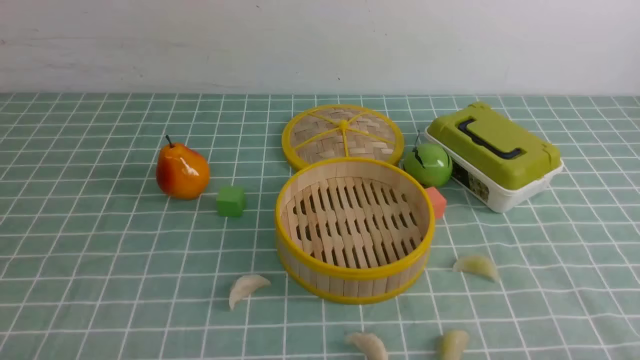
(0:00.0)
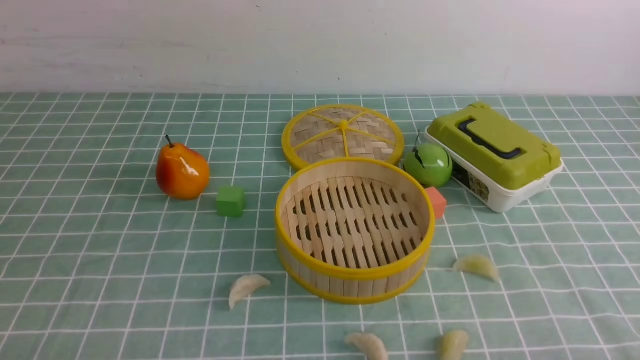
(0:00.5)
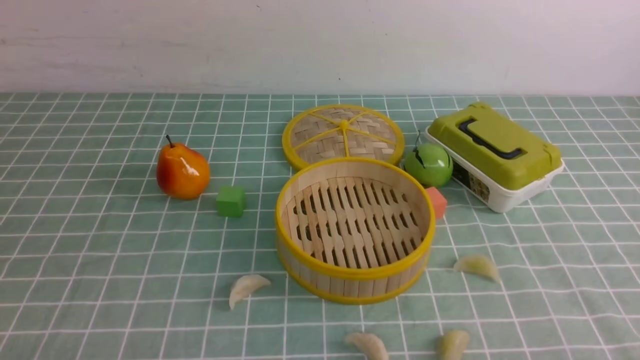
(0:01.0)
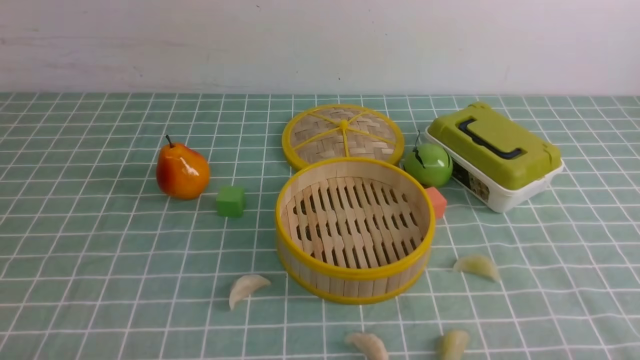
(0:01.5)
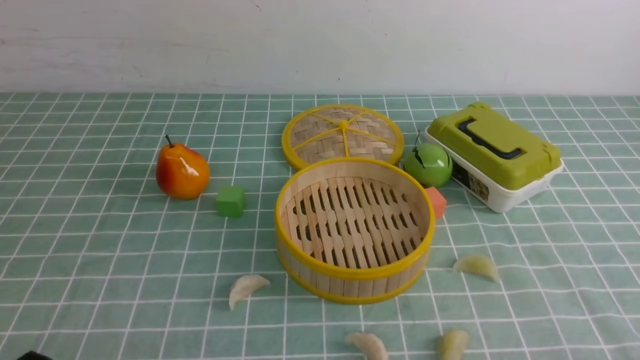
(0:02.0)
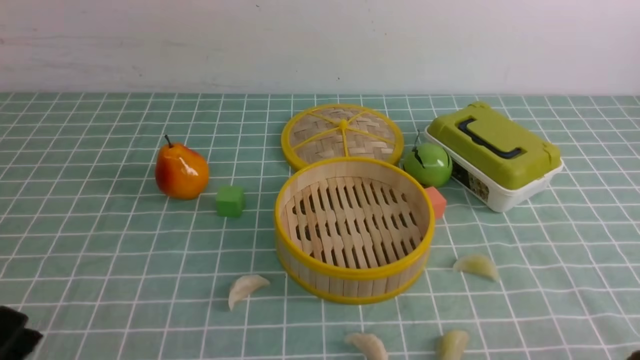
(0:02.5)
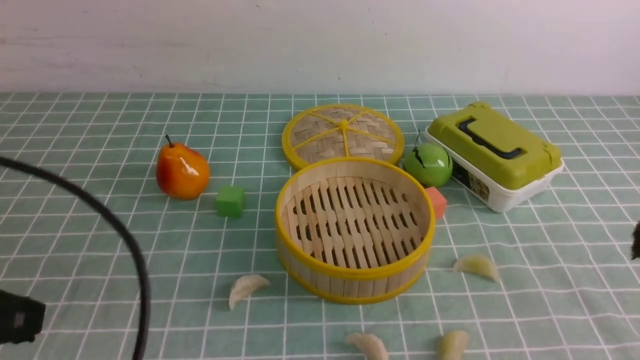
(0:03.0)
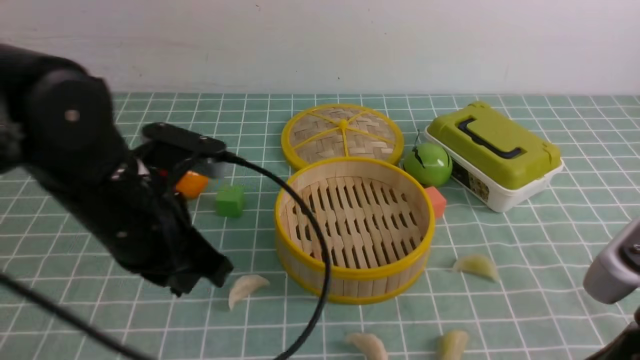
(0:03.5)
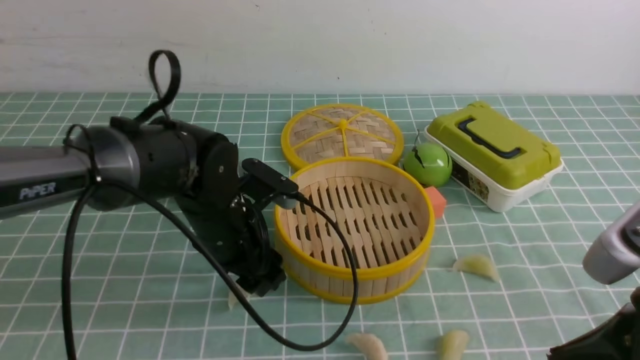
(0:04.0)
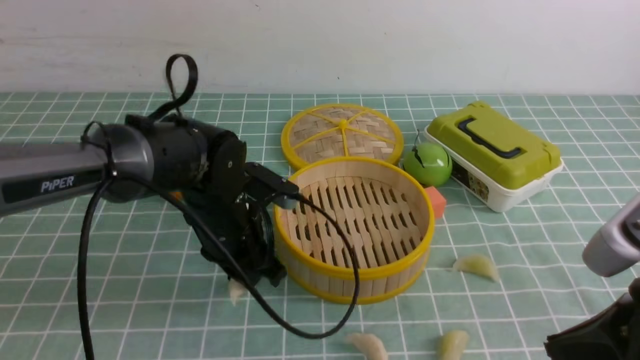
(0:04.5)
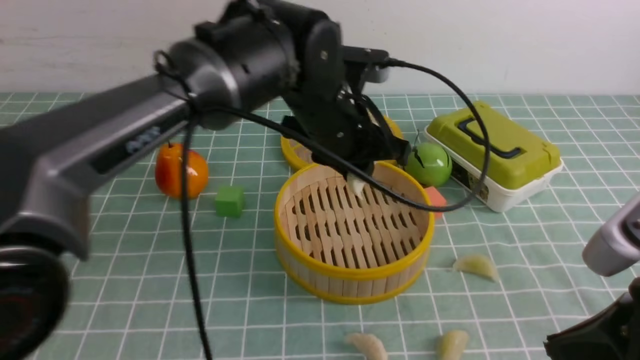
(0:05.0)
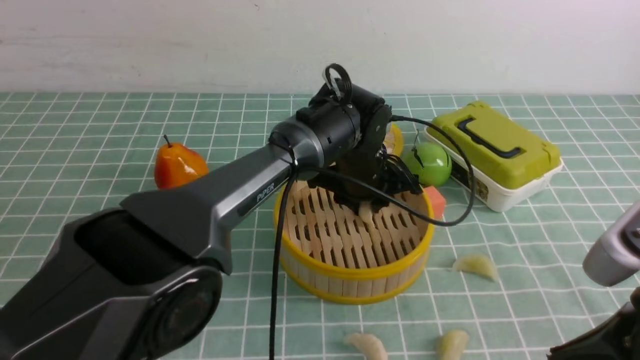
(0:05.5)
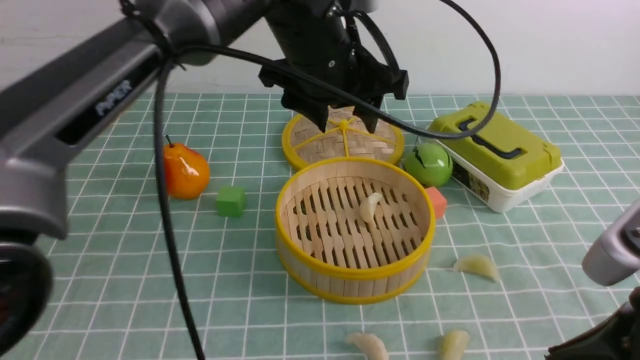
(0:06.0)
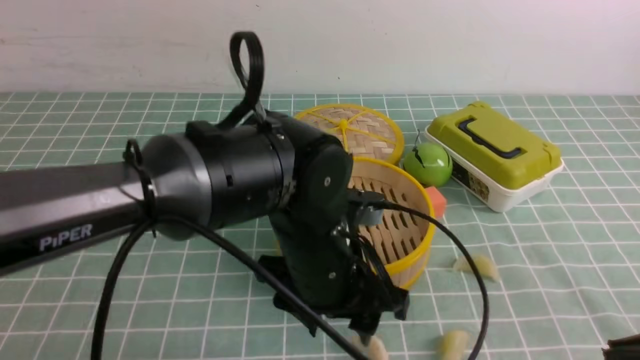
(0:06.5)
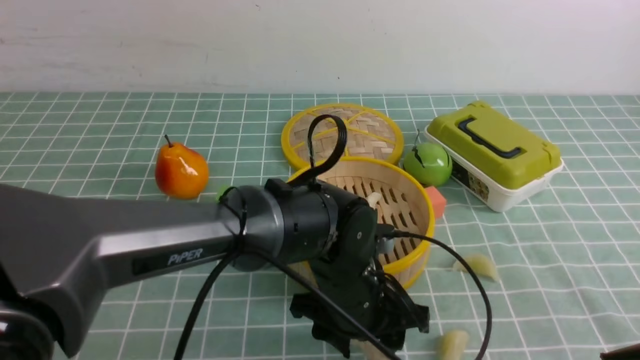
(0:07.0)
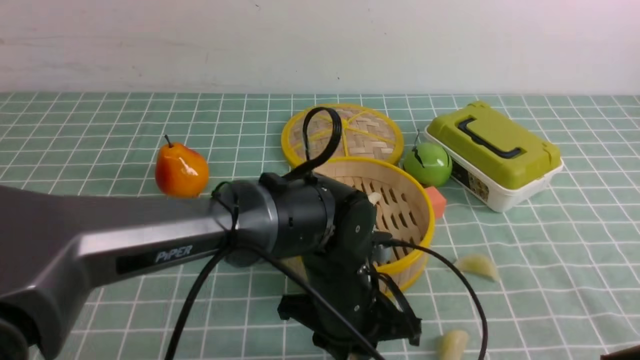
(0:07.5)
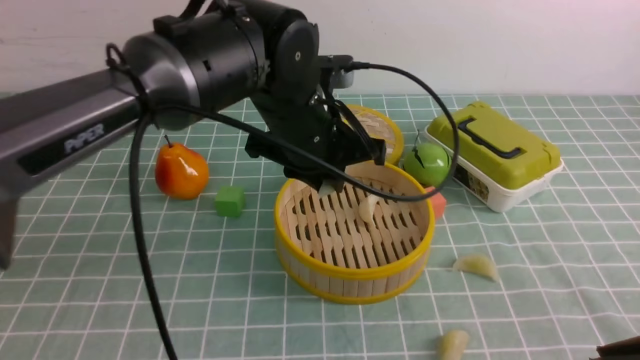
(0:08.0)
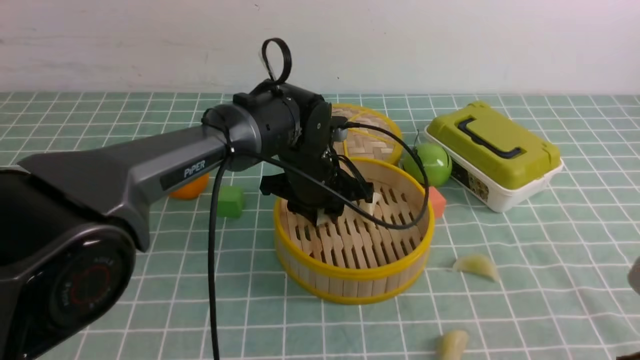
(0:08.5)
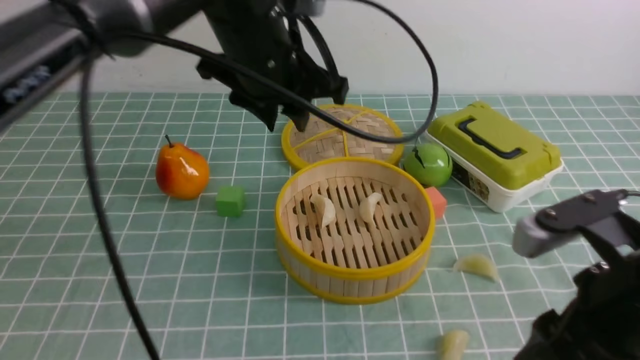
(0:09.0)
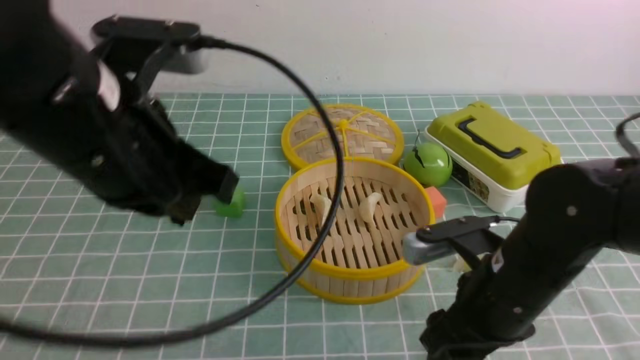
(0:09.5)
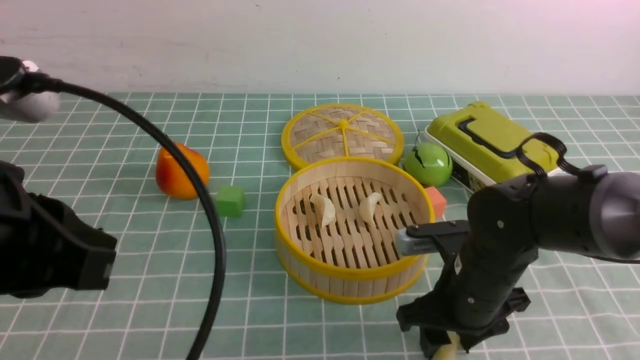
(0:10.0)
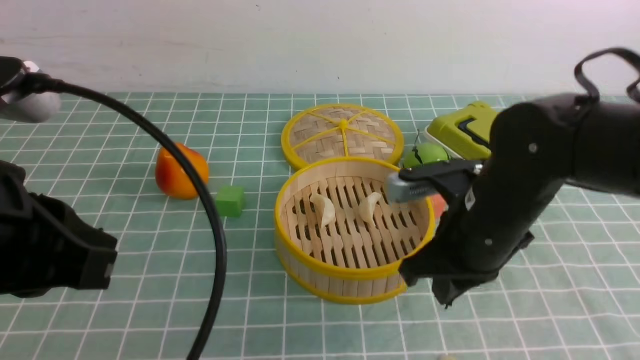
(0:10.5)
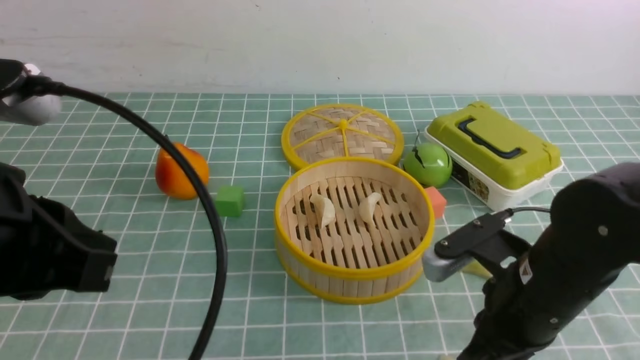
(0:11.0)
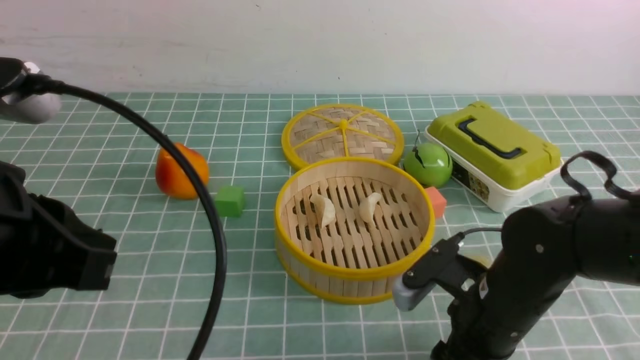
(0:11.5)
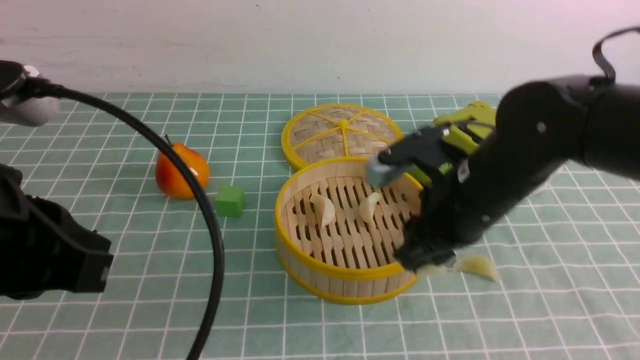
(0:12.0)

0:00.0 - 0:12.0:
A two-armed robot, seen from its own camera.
Task of the whole recording: put the dumplings into the steamer on the table with the blue tablecloth.
Step, 0:00.0 - 0:04.0: use the left arm to grab a dumpling.
Step, 0:04.5 - 0:05.5: use the left arm to put the dumpling into the steamer.
Step, 0:06.0 - 0:07.0: use the left arm to grab a dumpling.
Step, 0:07.5 - 0:08.5: use the left arm to put the dumpling into the steamer.
Step, 0:09.0 - 0:11.5: use the right arm to grab a dumpling.
0:02.0 - 0:04.0: The right gripper shifts roughly 15 cm upward, forward and to the left, and closes up; the left gripper travels forward and to the right by roughly 30 cm, and opens its fingers.
0:04.0 - 0:06.0: The left gripper swings up and down, some 15 cm each way, with 2 reversals, and closes, then opens again.
0:06.0 - 0:08.0: The left gripper goes downward and returns, approximately 15 cm each way, and closes its fingers.
0:08.0 - 0:10.0: The left gripper goes approximately 30 cm backward, to the left and upward, while the right gripper goes approximately 25 cm forward, downward and to the left, and opens.
0:10.0 - 0:12.0: The right gripper goes up and down, about 10 cm each way, reversing 2 times, and closes, then reopens.

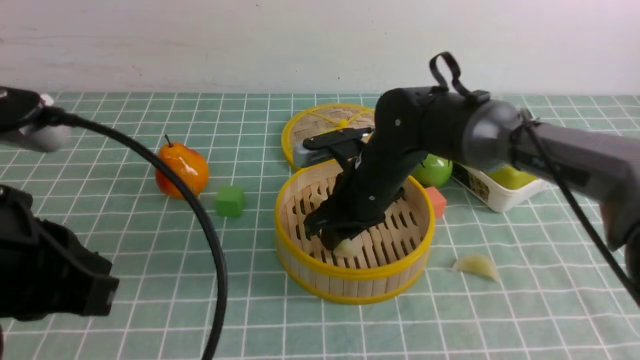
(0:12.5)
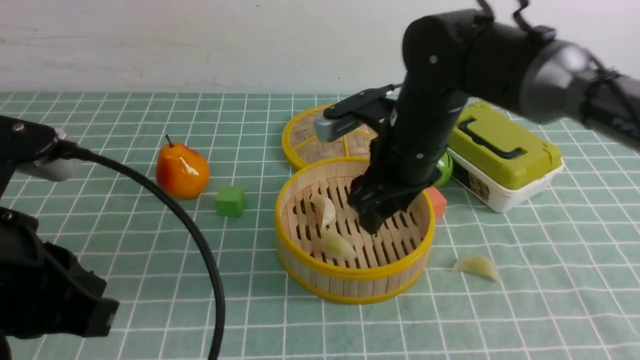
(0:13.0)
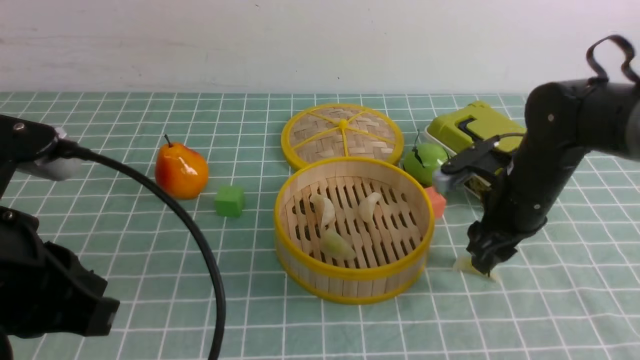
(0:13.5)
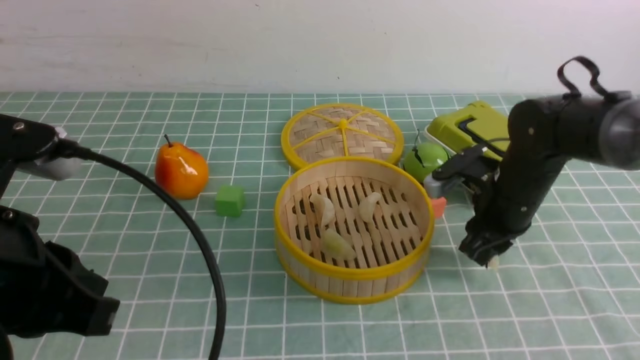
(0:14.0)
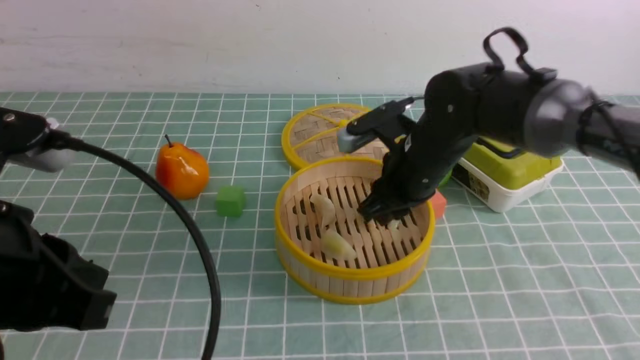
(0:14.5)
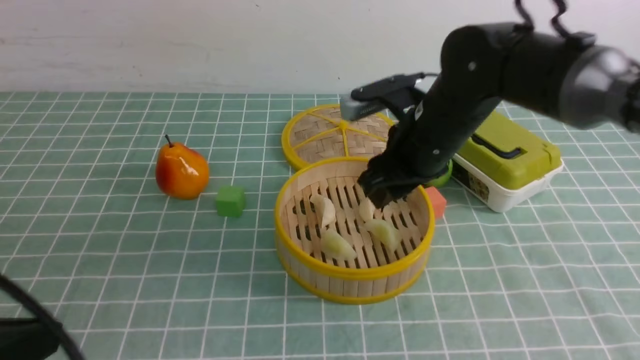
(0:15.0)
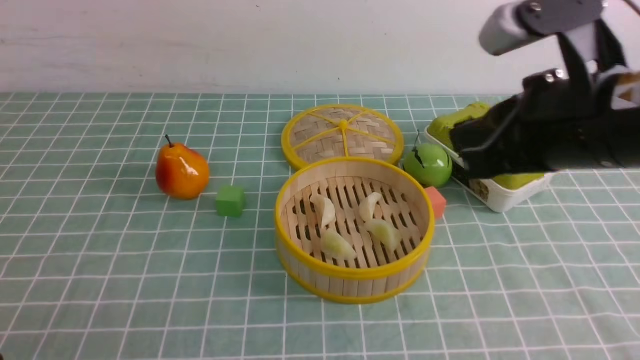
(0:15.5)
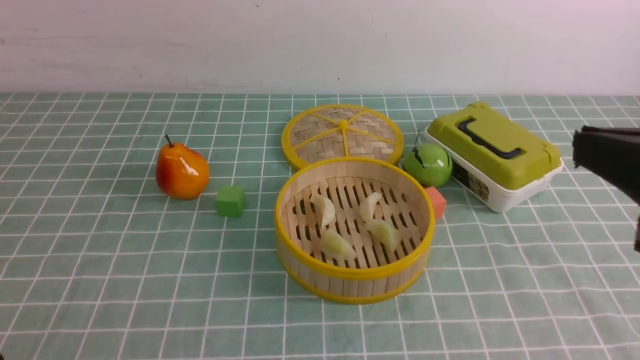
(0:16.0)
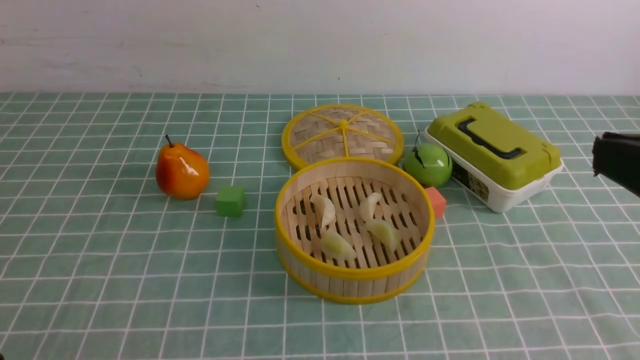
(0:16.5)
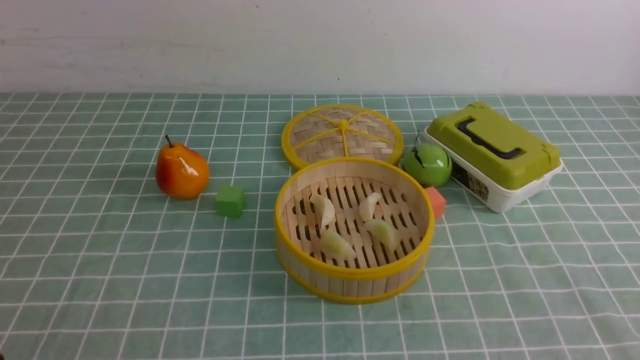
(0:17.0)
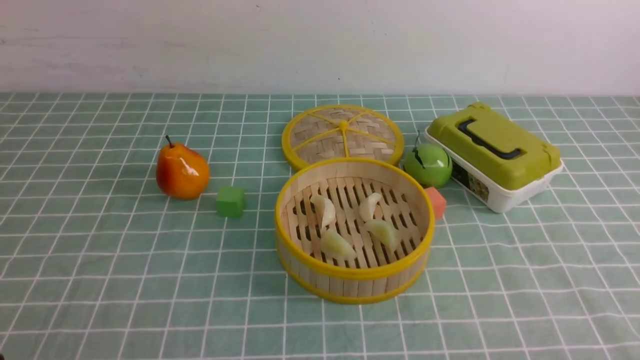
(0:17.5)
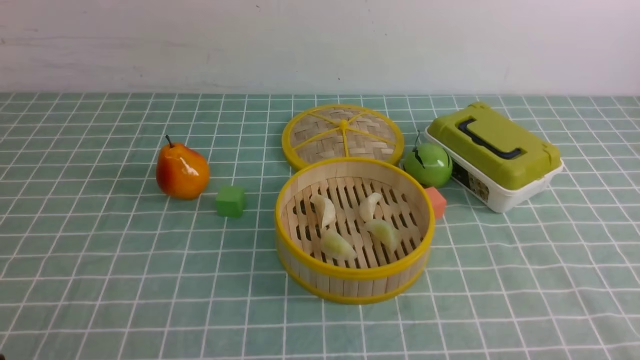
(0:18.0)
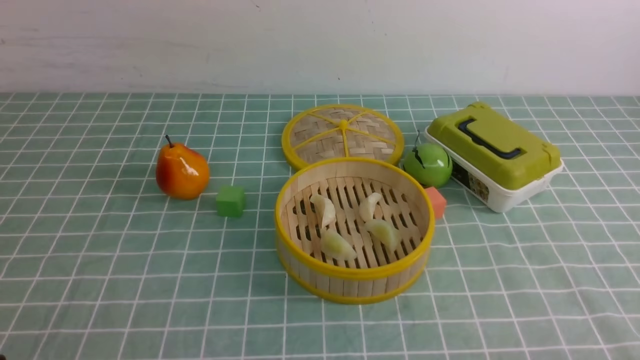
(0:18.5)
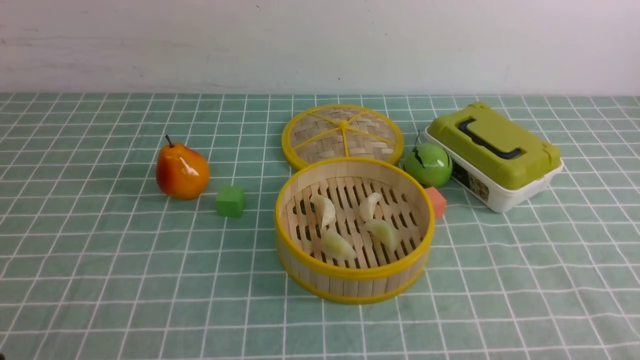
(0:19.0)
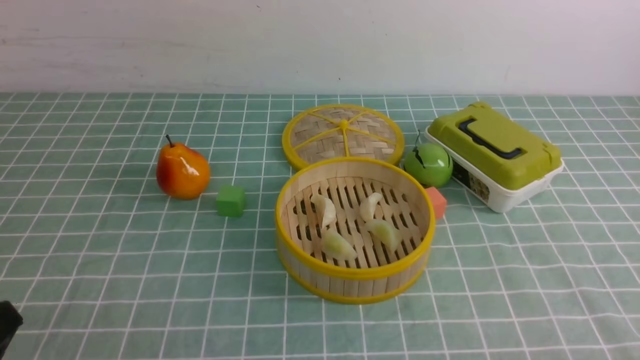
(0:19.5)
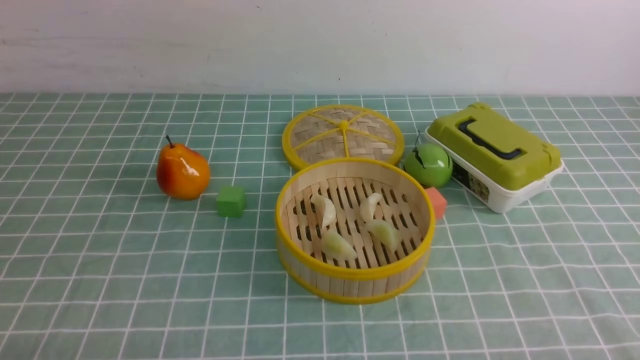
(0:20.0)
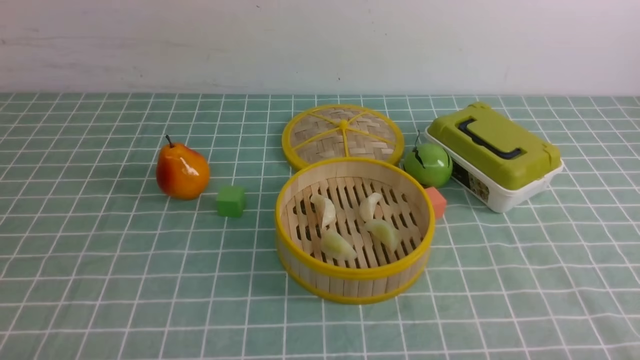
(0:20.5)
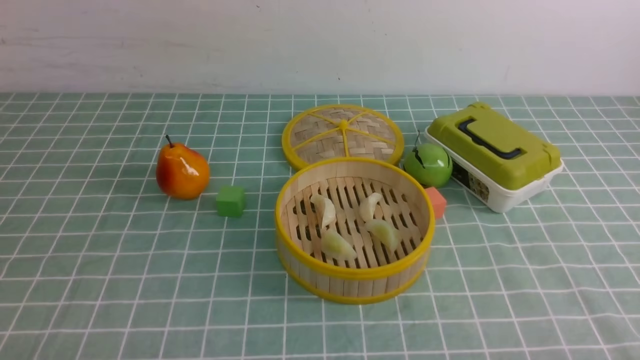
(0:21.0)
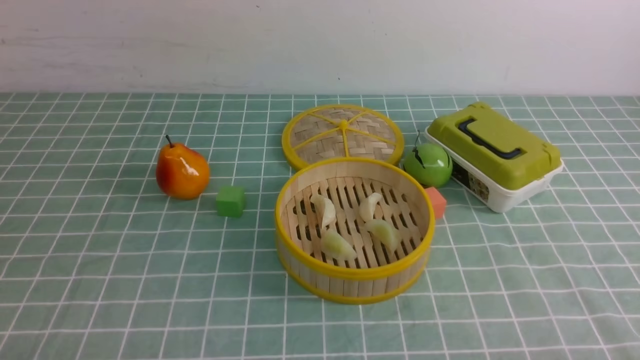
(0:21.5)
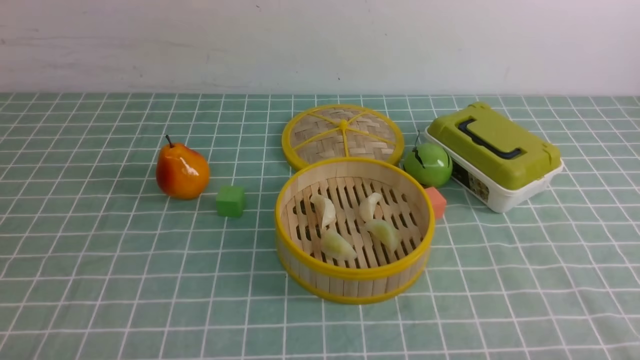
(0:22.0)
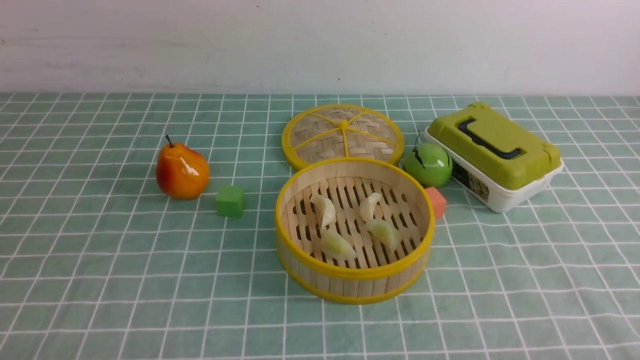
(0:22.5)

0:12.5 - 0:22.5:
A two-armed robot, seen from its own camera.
Task of the whole recording: put the dumplings into the steamer on the table with the blue tablecloth.
Step, 0:13.0 - 0:13.5: use the right arm to grab a dumpling.
Step, 0:14.0 - 0:14.5: use the right arm to put the dumpling into the steamer.
0:12.5 - 0:14.5: The right gripper is displaced to the right by some 5 cm.
0:14.5 - 0:16.5: The right gripper moves backward, upward and to the right, approximately 35 cm, and closes its fingers; the left gripper heads backward, downward and to the left, covering roughly 15 cm.
0:16.5 - 0:18.5: The right gripper is displaced downward by some 20 cm.
0:20.5 - 0:22.5: Both grippers stay about where they are.
